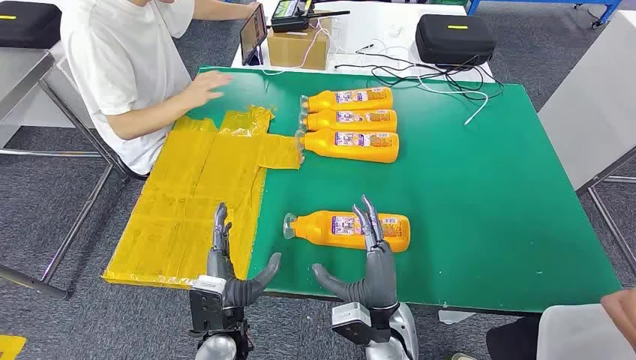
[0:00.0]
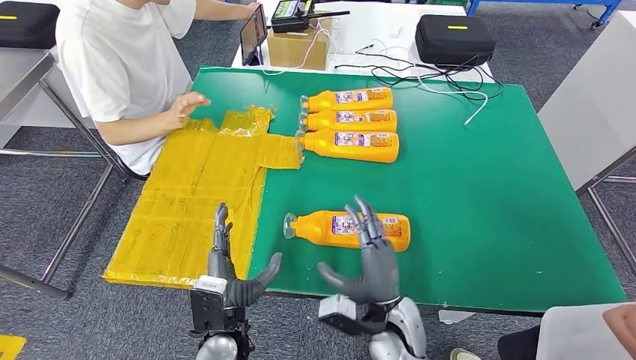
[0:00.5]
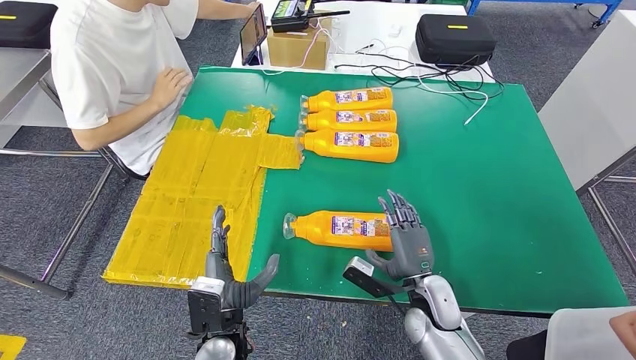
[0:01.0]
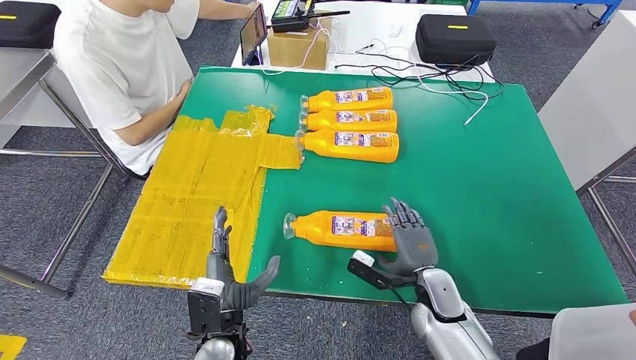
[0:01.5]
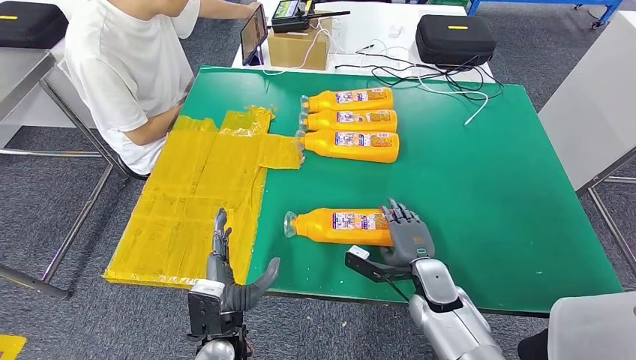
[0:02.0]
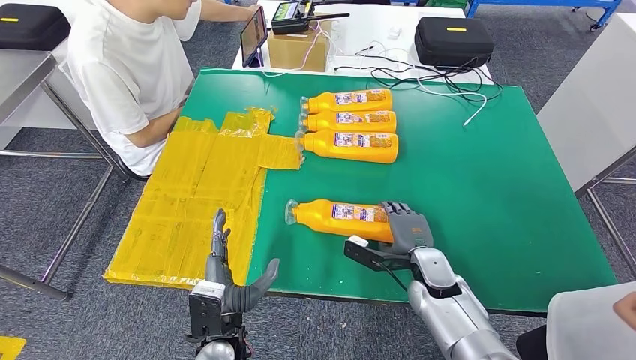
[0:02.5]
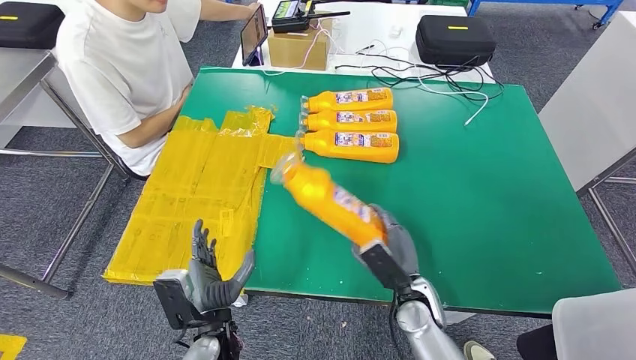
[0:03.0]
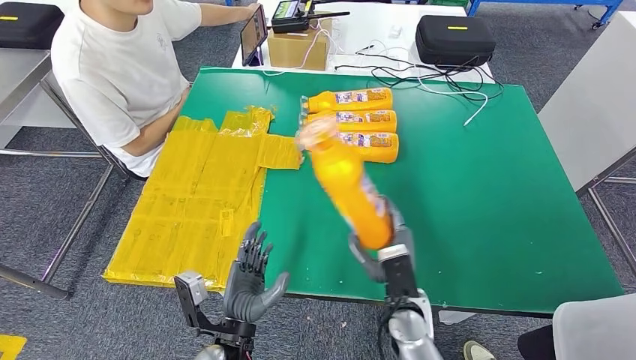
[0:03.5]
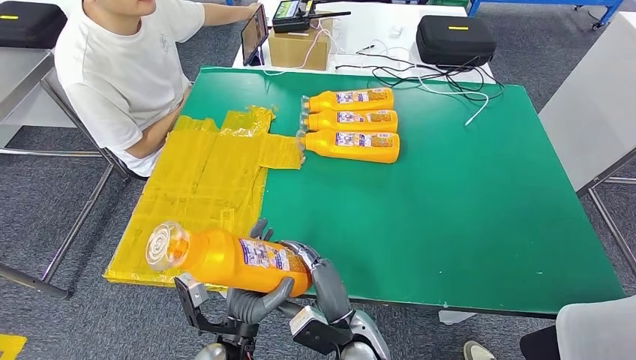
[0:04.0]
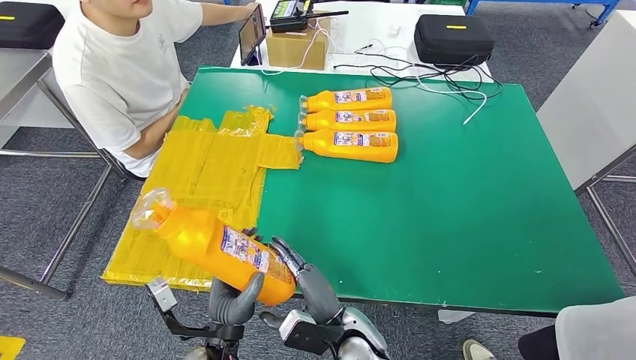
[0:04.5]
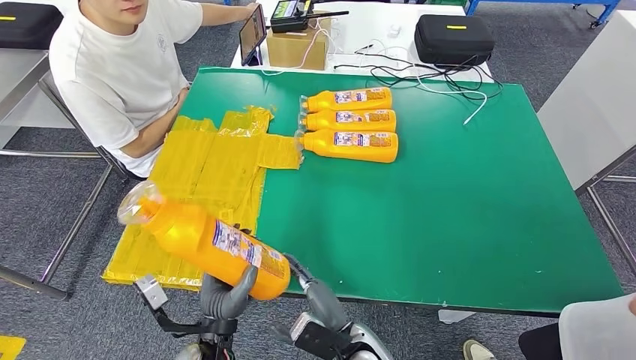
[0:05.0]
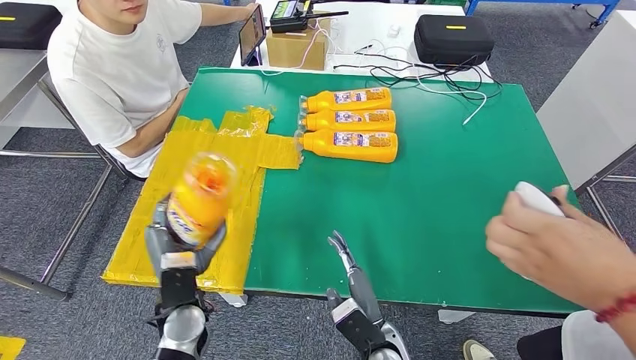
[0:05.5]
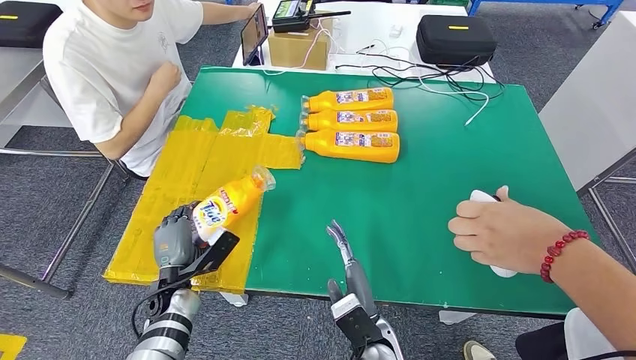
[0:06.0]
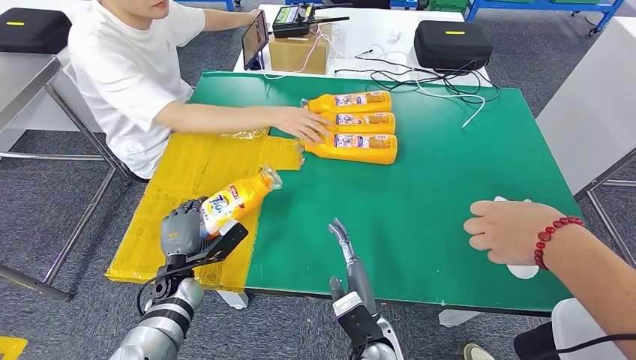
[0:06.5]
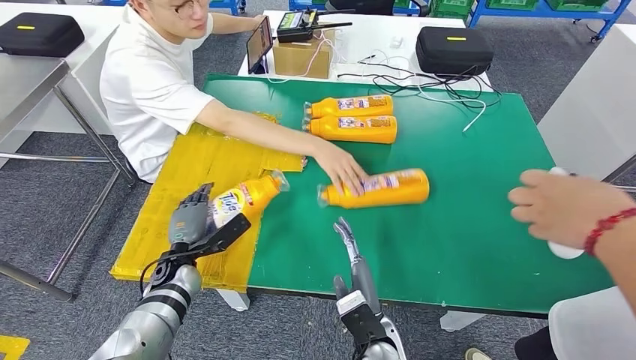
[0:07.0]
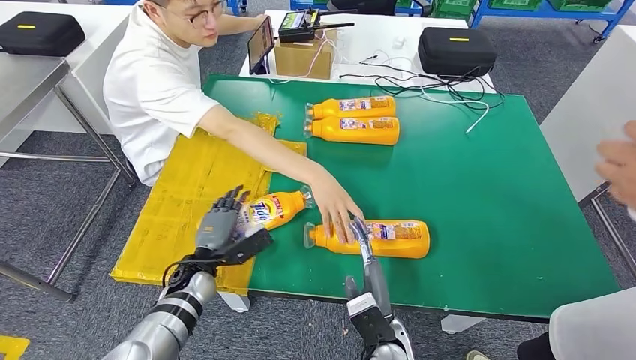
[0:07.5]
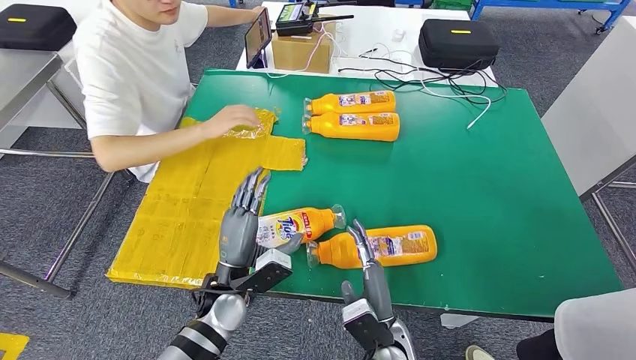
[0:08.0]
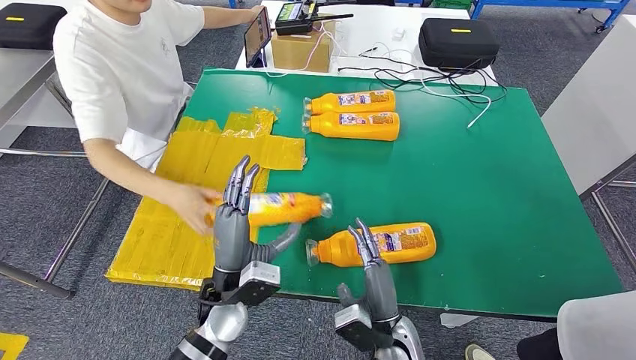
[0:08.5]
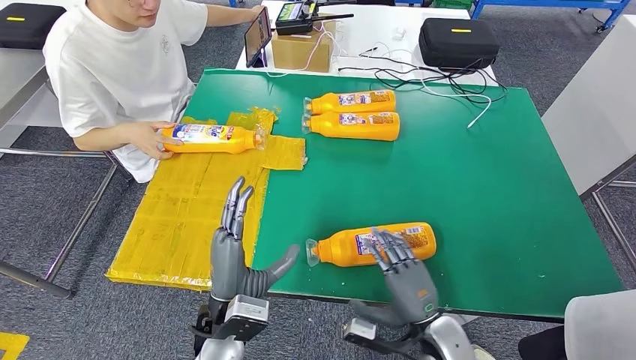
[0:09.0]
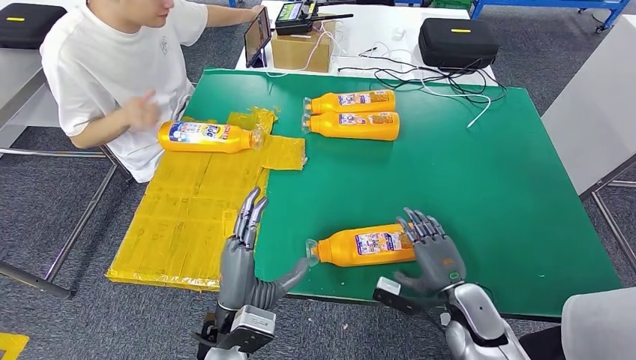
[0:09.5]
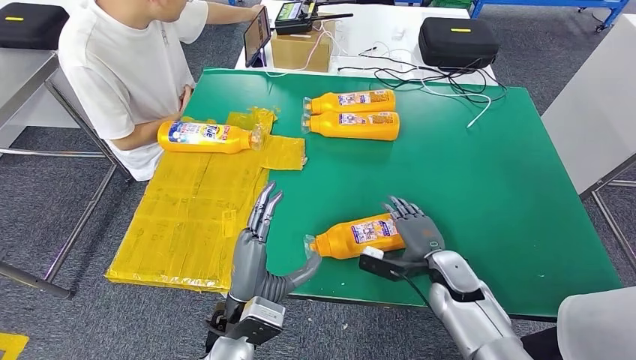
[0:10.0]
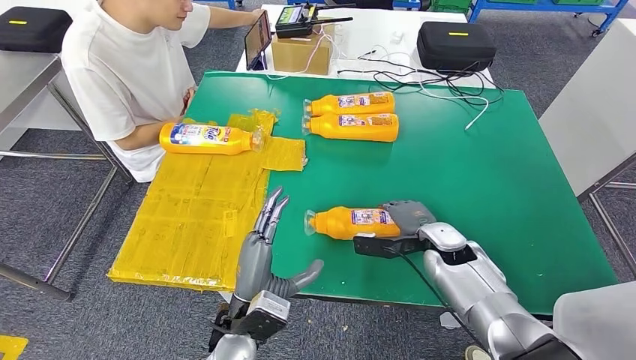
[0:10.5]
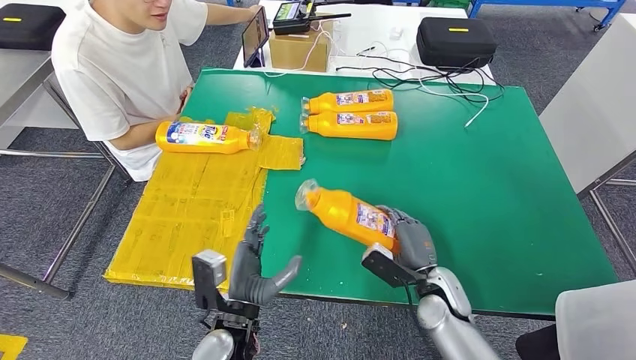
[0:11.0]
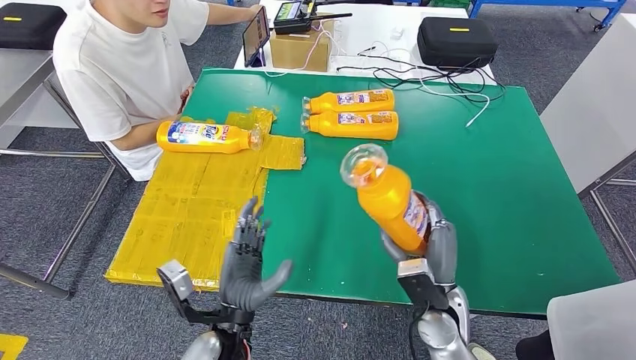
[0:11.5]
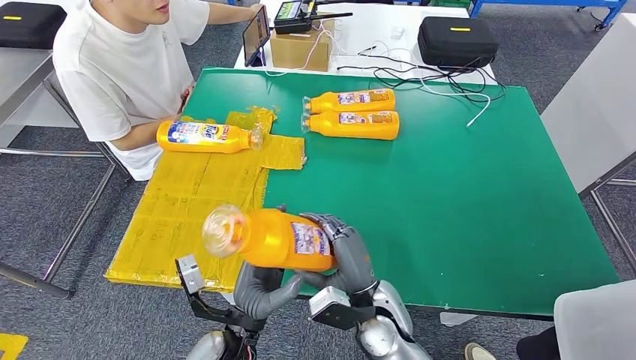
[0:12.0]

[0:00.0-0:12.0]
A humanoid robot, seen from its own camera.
Step, 0:00.0 to 0:04.0: Take the bottle from the table.
Step, 0:04.5 to 0:08.0: Flip the bottle to face forward.
0:02.0 to 0:04.0: The right hand shifts roughly 20 cm to the left and backward.
0:04.0 to 0:06.0: The left hand is displaced to the left and forward by some 15 cm.
0:10.0 to 0:12.0: The right hand moves to the left and backward, approximately 15 cm.

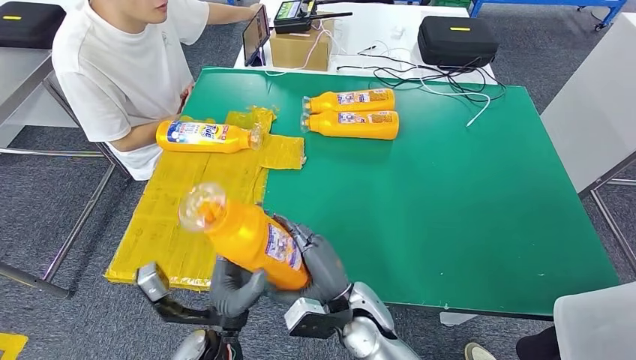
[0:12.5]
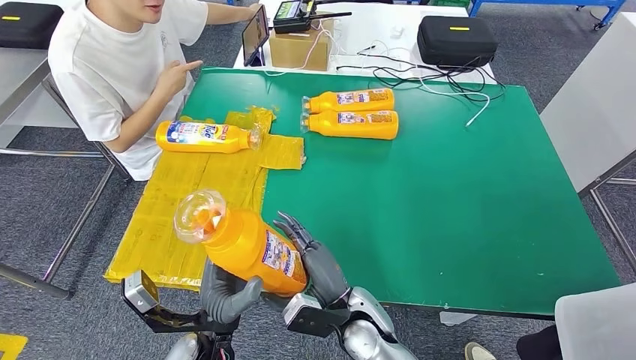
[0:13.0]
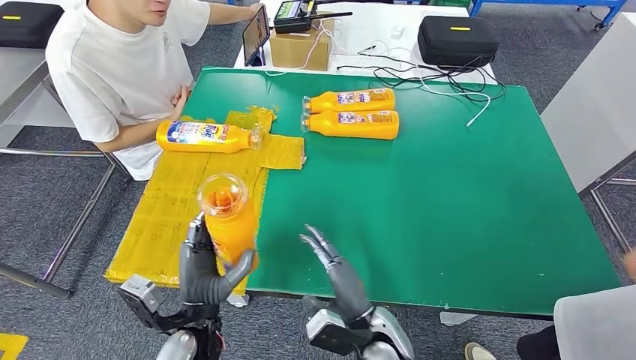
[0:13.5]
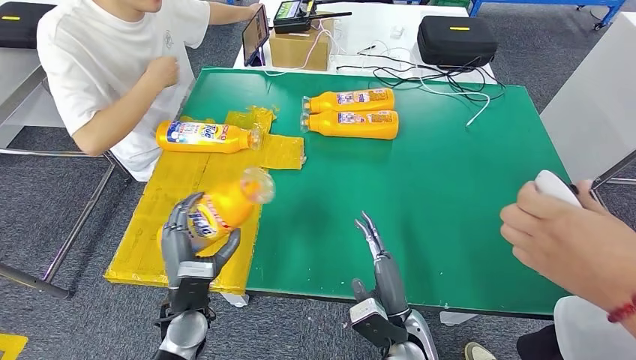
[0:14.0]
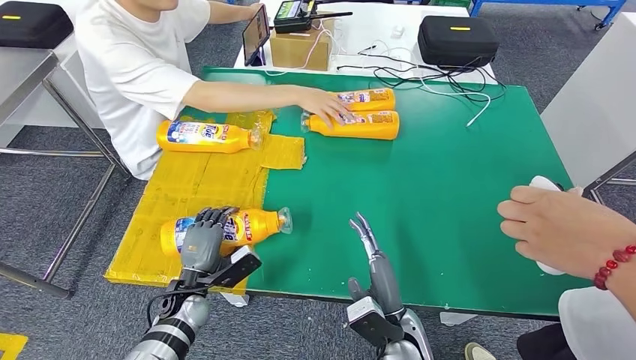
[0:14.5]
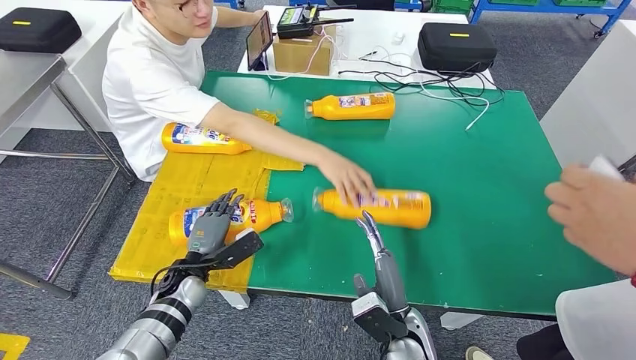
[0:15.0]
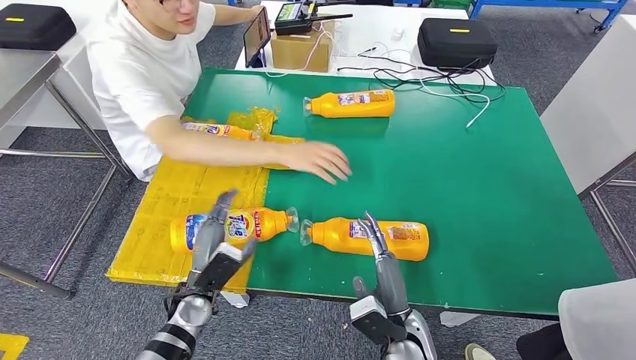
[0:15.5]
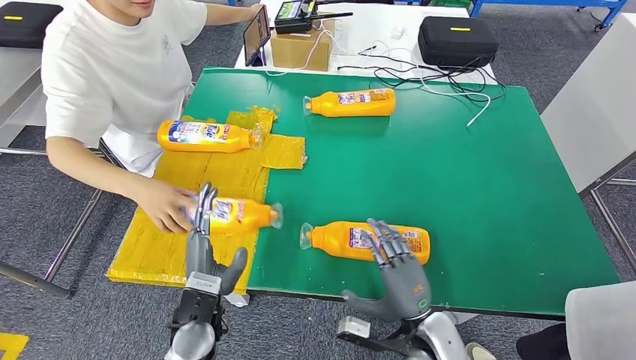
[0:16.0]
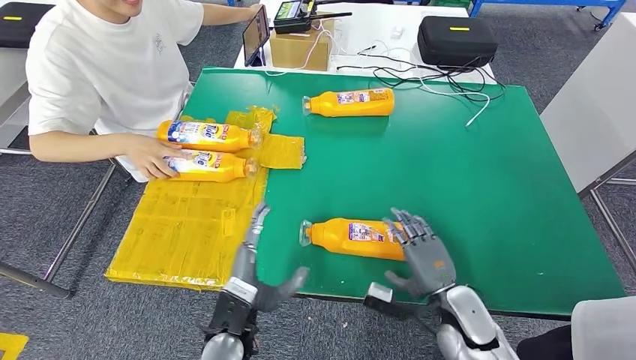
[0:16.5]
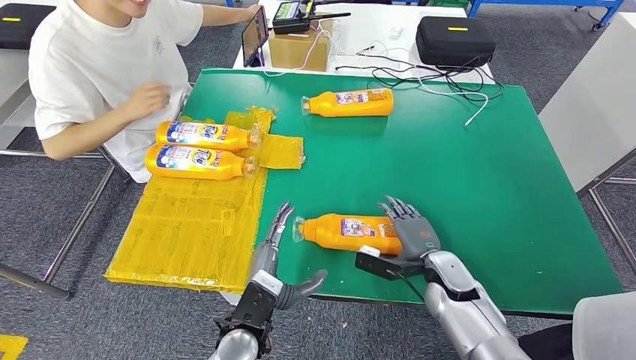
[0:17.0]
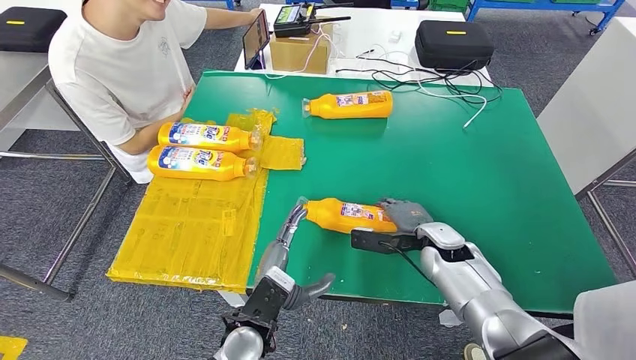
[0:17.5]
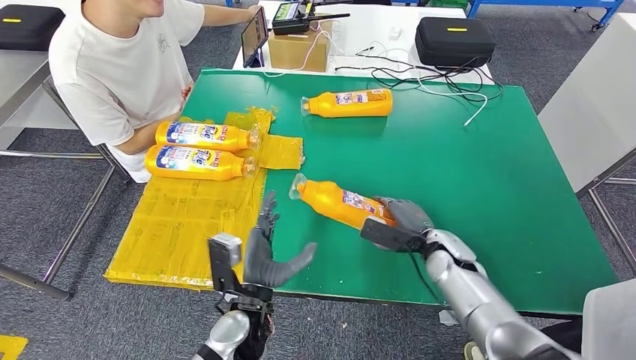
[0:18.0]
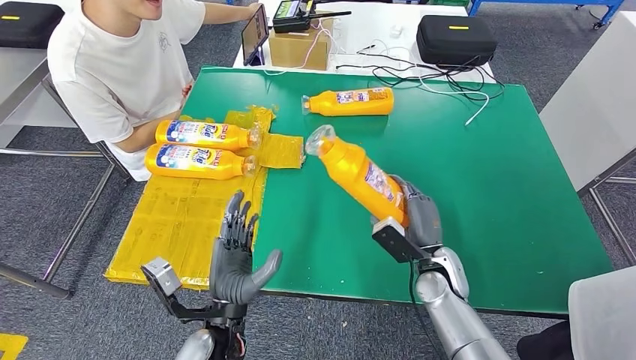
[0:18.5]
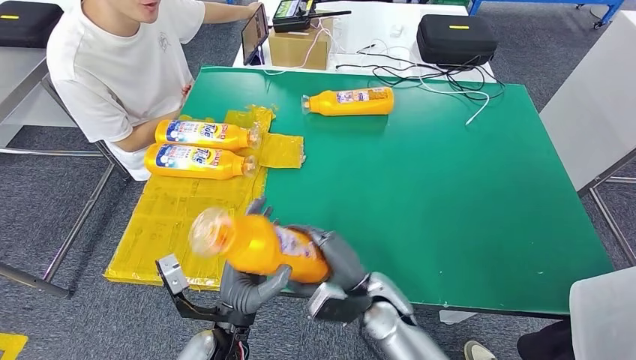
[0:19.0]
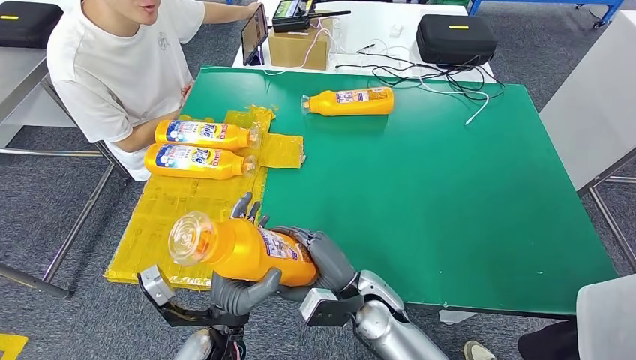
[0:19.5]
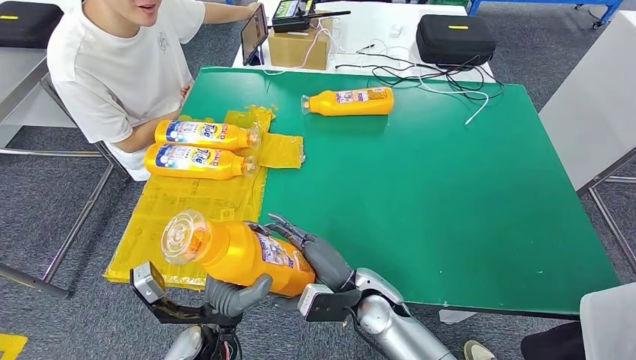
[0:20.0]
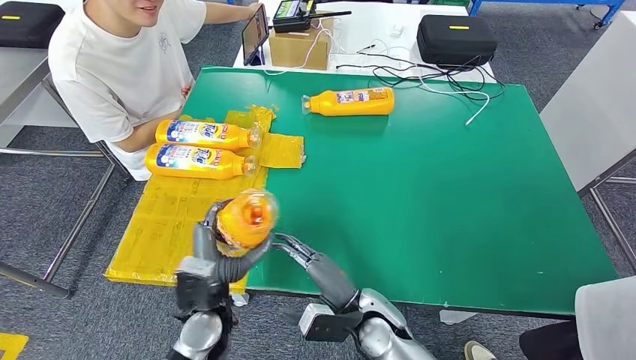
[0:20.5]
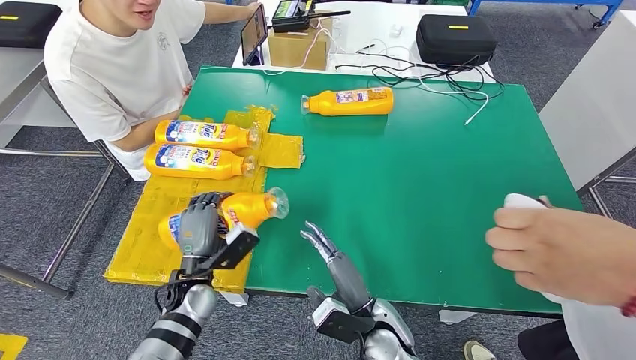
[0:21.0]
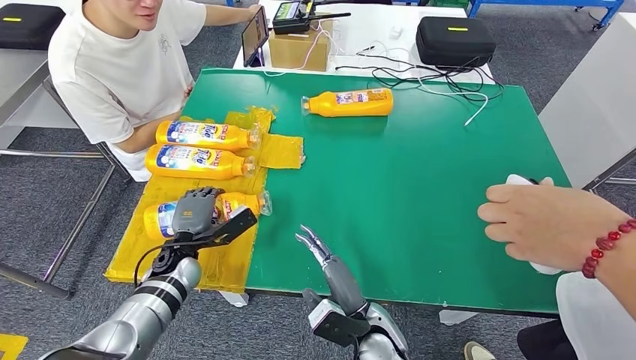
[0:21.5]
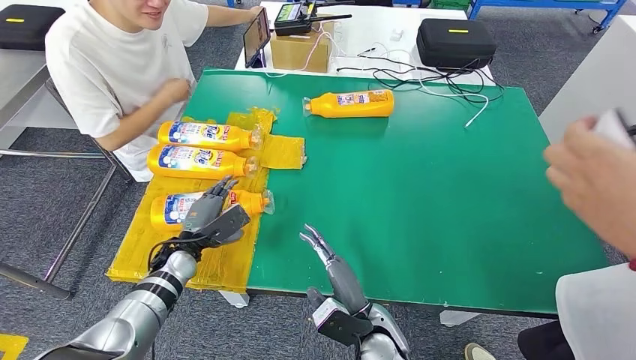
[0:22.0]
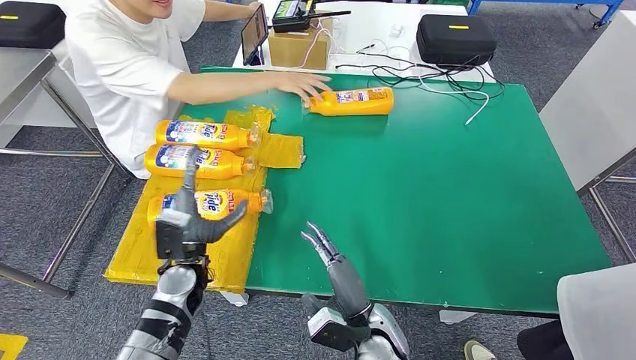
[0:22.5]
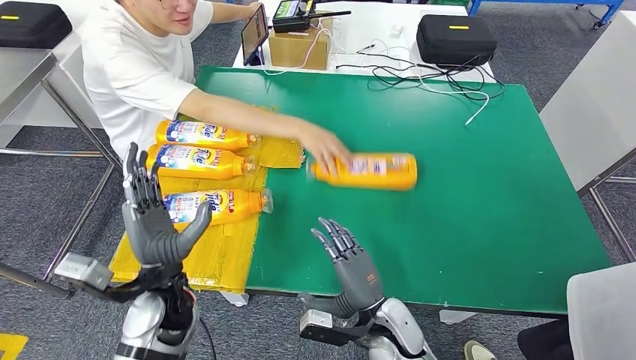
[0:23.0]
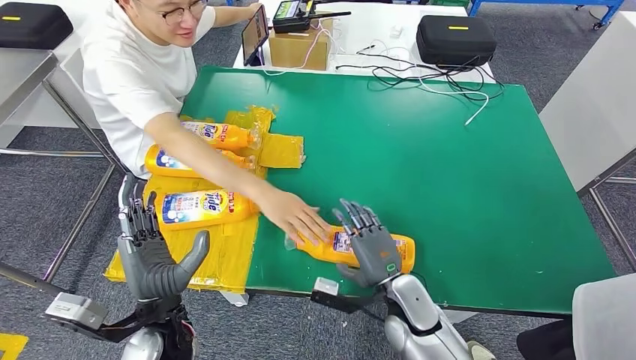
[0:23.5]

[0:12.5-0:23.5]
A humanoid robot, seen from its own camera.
Step, 0:13.0 to 0:15.0: Flip the bottle to face forward.
Step, 0:16.0 to 0:20.5: Pick up the bottle from the table.
